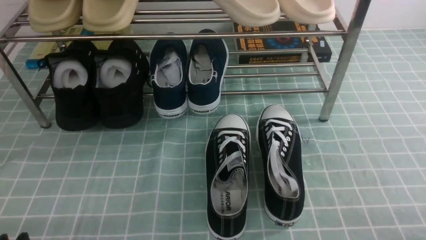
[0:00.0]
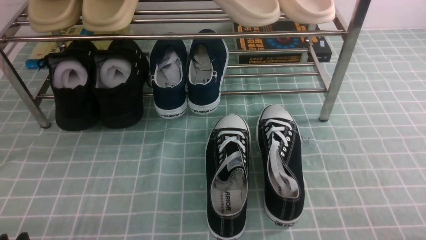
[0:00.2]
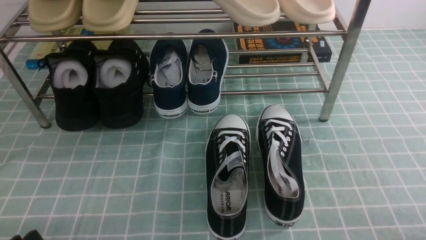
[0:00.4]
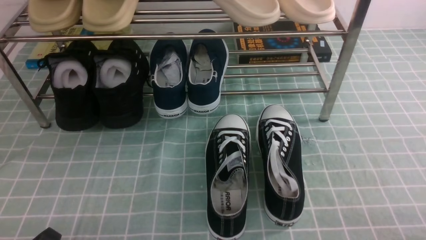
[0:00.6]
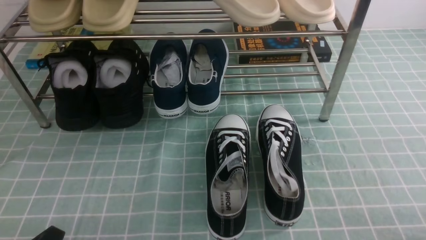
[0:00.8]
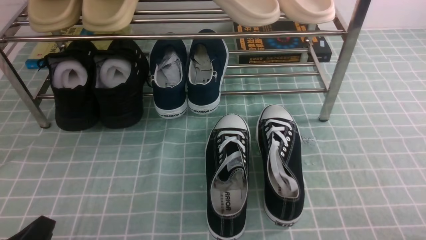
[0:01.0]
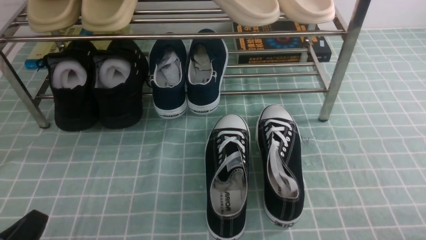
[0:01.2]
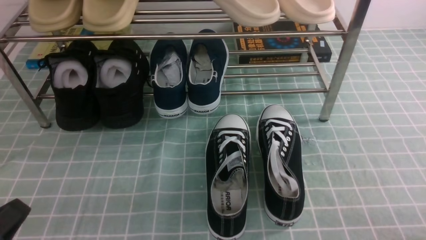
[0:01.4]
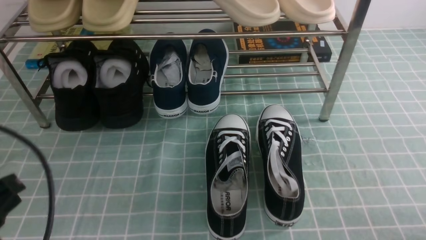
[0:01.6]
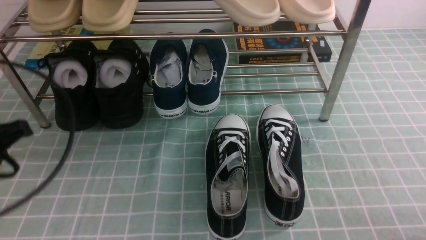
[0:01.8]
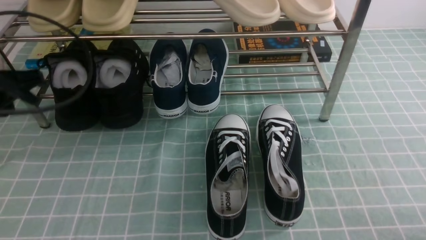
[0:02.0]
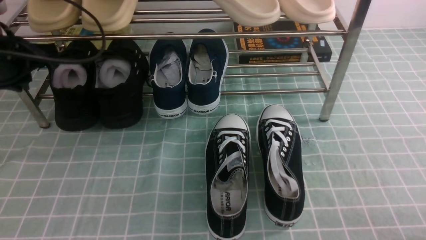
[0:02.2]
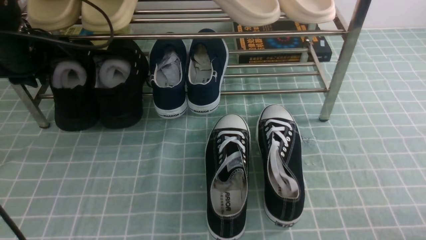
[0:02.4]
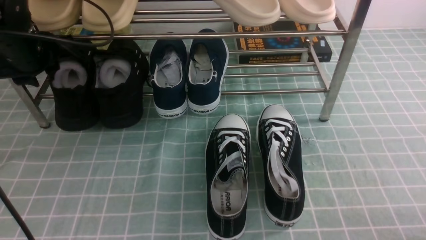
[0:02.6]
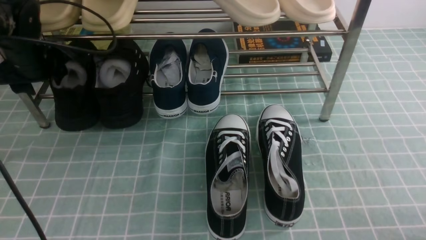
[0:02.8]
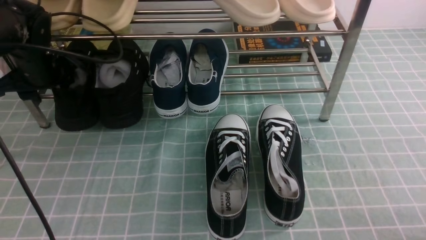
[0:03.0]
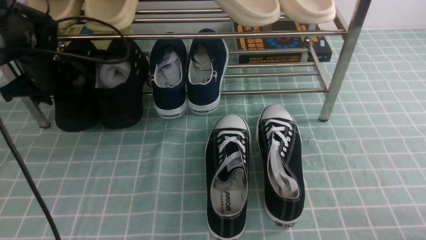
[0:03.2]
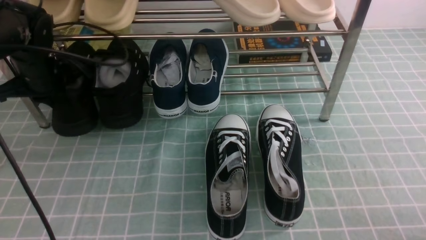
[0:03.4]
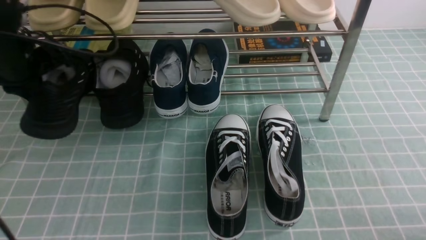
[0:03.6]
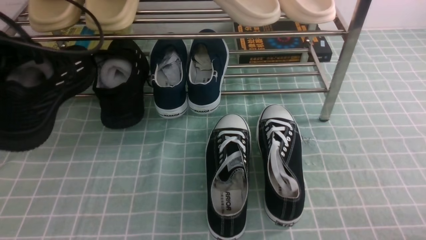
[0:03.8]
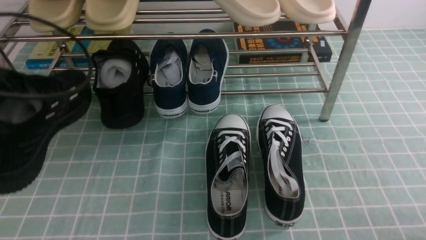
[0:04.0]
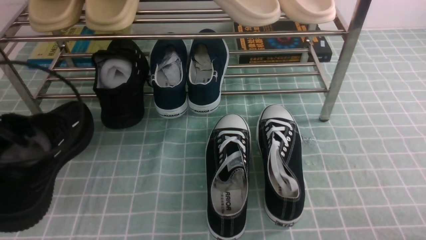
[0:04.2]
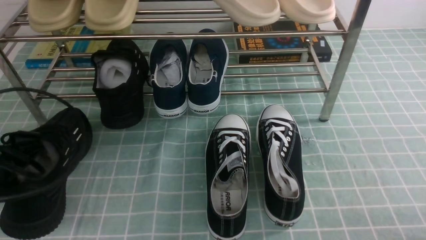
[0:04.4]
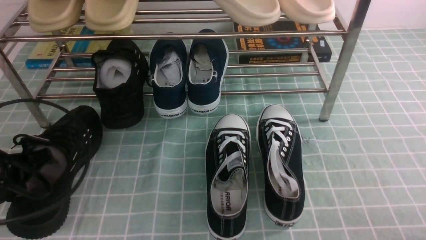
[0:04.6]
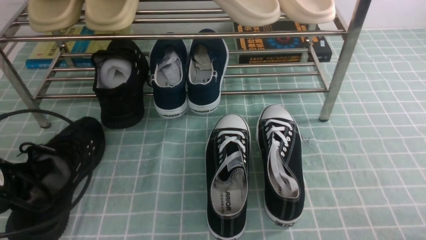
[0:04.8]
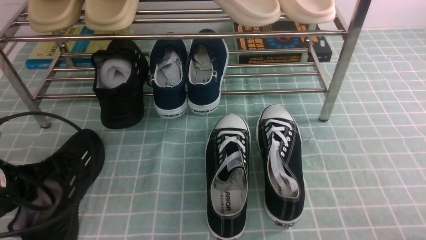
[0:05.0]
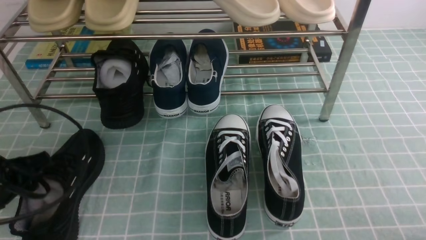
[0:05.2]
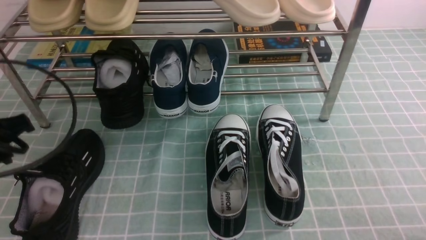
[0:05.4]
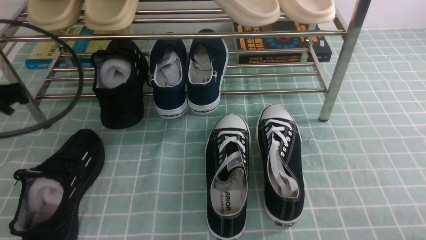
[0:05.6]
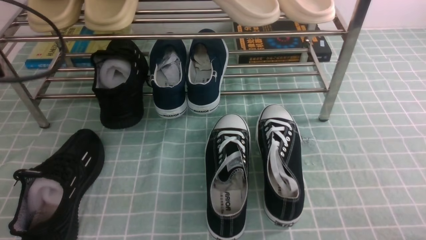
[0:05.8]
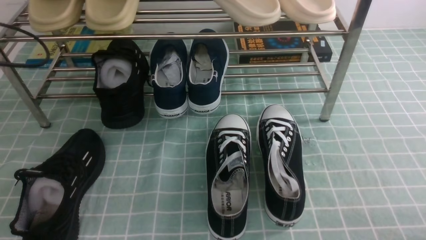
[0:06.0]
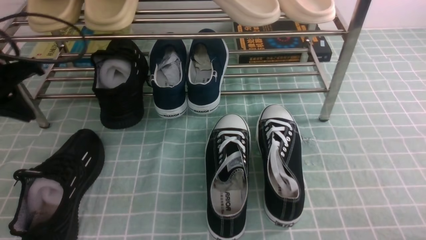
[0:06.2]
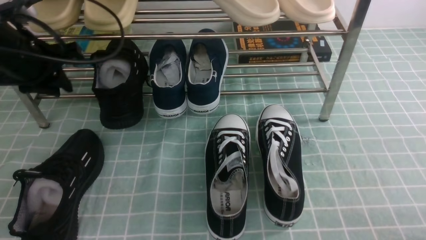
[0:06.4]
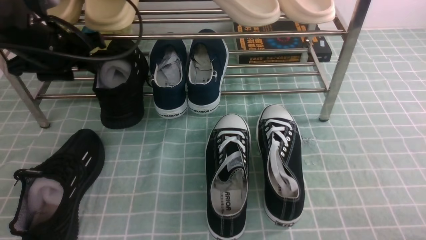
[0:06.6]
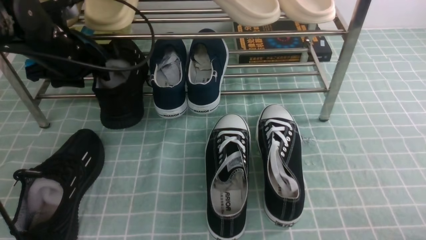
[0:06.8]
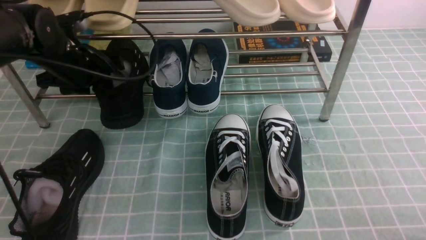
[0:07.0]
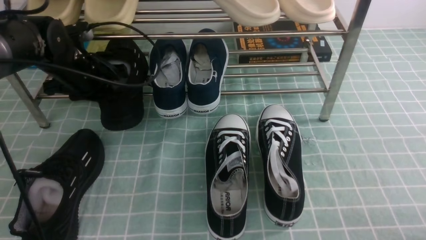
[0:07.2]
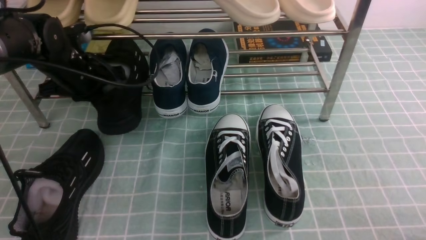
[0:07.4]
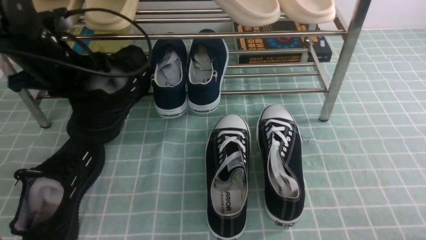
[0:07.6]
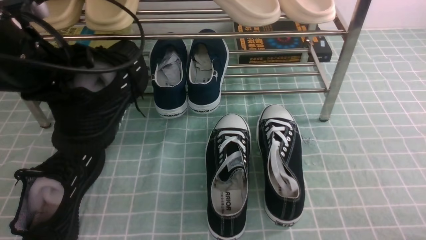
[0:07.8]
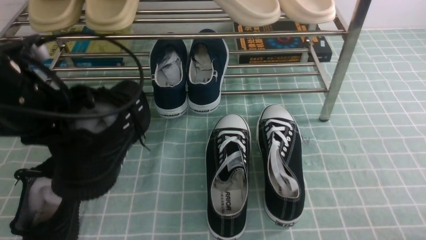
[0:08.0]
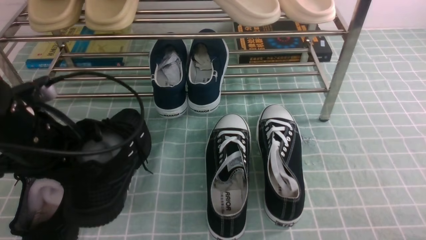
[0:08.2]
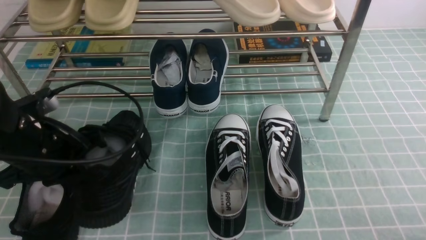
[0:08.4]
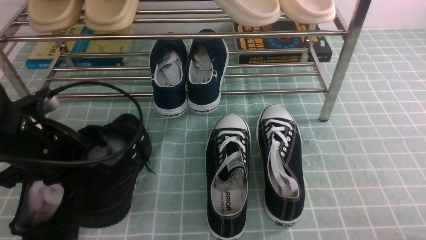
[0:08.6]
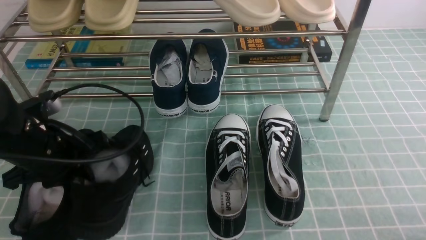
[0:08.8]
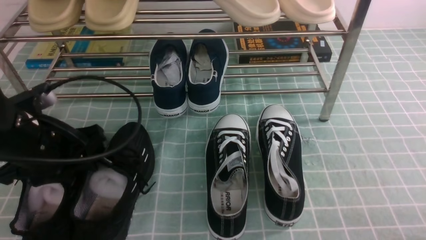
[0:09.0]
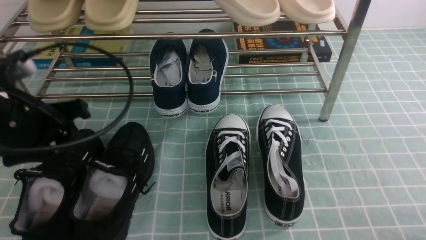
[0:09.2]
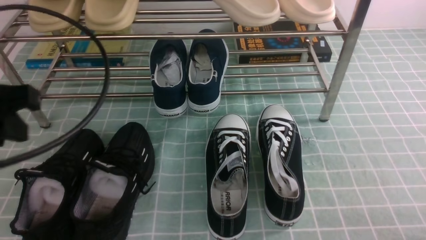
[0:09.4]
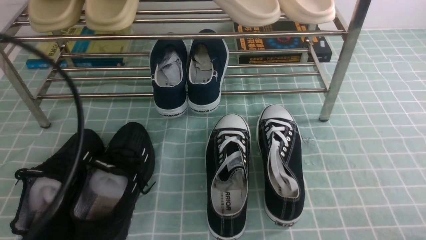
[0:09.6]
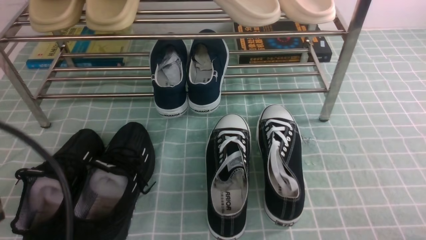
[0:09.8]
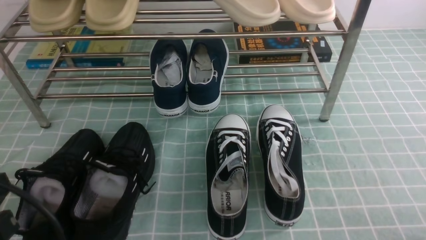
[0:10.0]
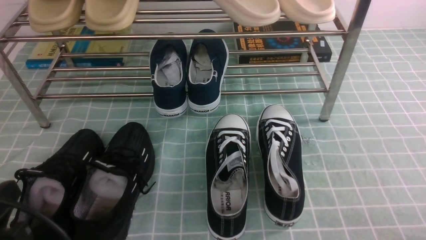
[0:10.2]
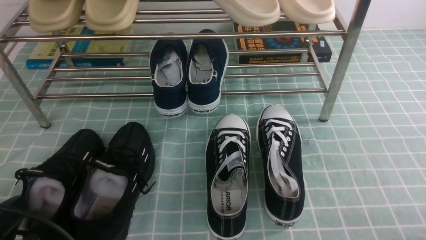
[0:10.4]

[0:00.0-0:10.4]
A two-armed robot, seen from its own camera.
Step, 0:00.0 to 0:03.2: use the left arm to clamp a shoe on the left side of the shoe rack.
Step, 0:03.4 to 0:05.2: Use your left arm to remove the clamped shoe from the shoe rack and put it down.
Step, 0:05.4 to 0:07.2: use the left arm to clamp a shoe on the left side of the shoe rack.
Step, 0:07.4 to 0:09.2: Use your left arm to remove the clamped shoe from the shoe rack and put it down.
0:00.0 to 0:01.4: The left gripper travels upward by approximately 10 cm, and closes.
0:01.4 to 0:03.0: The left gripper is displaced forward by about 35 cm, and opens up.
0:03.0 to 0:04.4: The left gripper heads backward, covering approximately 20 cm, and closes up.
0:04.4 to 0:06.0: The left gripper shifts about 10 cm forward and upward, and opens, then closes again.
0:06.0 to 0:07.4: The left gripper is displaced to the right, forward and downward by roughly 15 cm, and opens and closes again.
0:07.4 to 0:09.0: The left gripper heads backward, covering roughly 15 cm, and opens up.
0:09.0 to 0:10.4: The left gripper heads backward, covering roughly 15 cm, and closes.

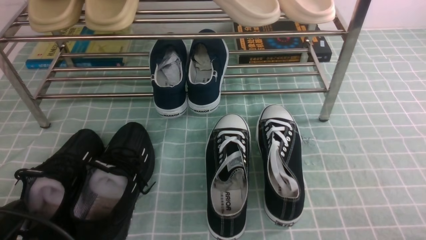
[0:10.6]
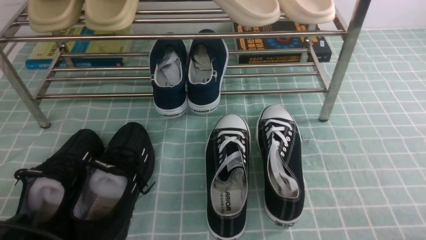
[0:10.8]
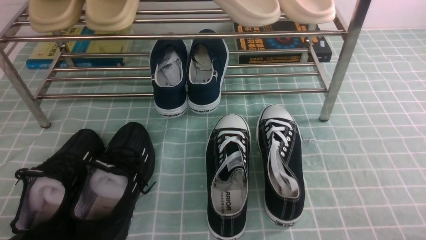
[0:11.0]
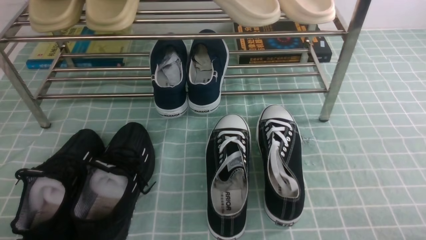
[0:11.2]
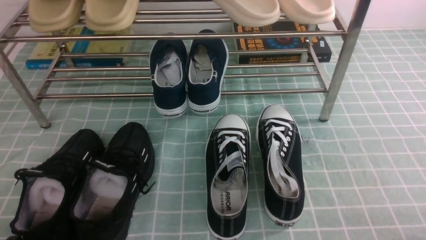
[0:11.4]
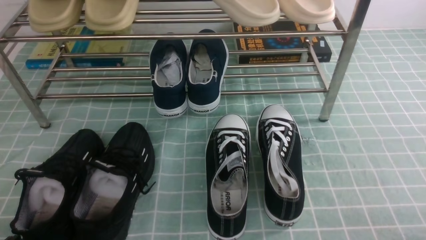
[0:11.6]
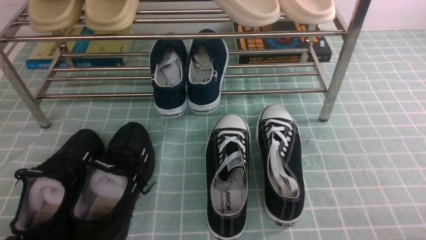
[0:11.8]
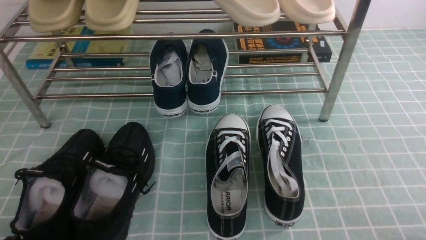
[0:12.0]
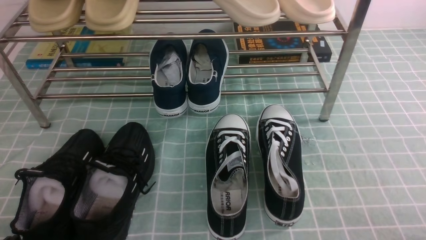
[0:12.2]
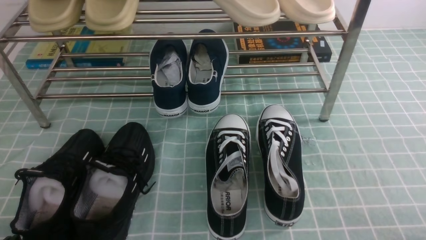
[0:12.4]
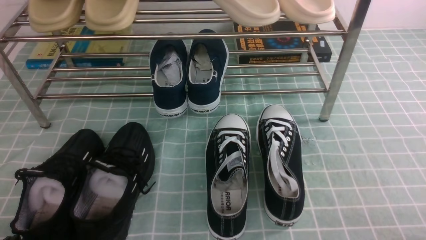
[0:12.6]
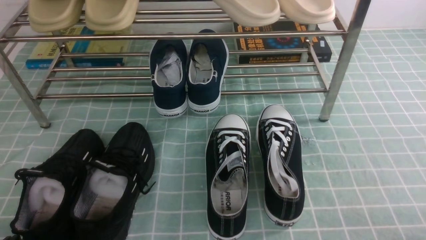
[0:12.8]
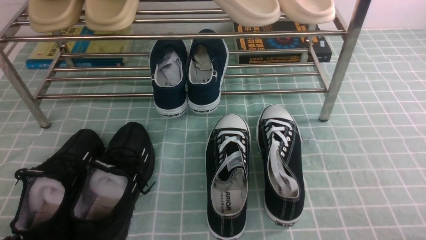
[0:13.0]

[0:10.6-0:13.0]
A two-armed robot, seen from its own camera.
0:10.6 to 0:11.8: The left gripper goes approximately 5 cm downward.
0:11.8 to 0:13.0: Both grippers stay about where they are.
